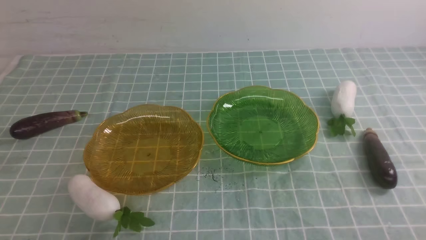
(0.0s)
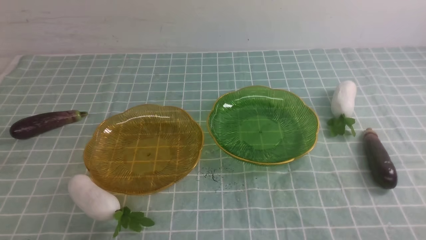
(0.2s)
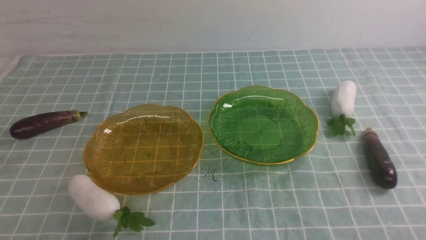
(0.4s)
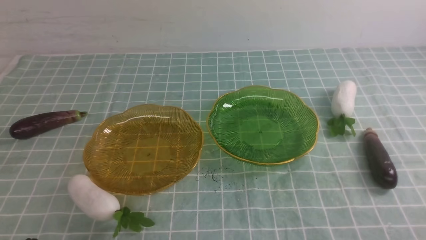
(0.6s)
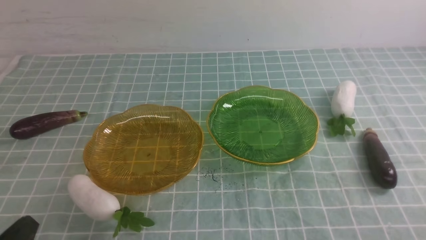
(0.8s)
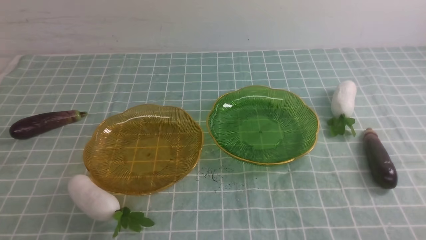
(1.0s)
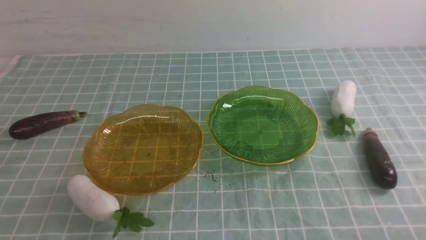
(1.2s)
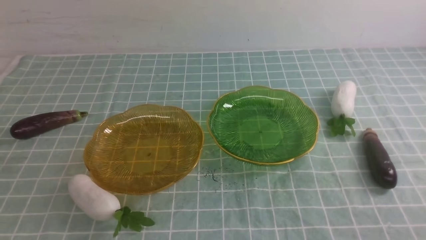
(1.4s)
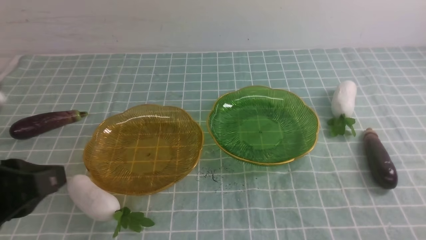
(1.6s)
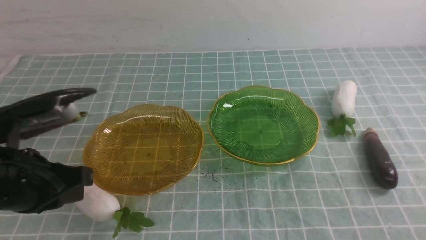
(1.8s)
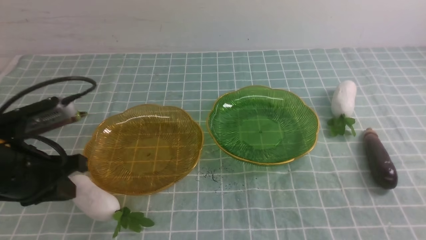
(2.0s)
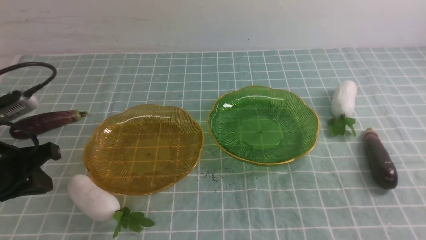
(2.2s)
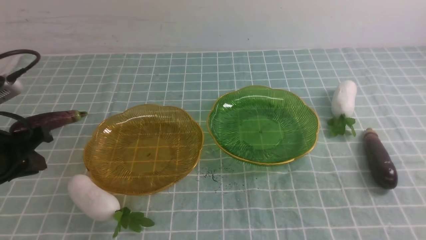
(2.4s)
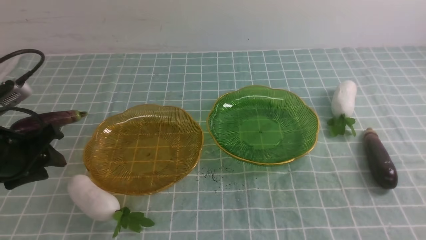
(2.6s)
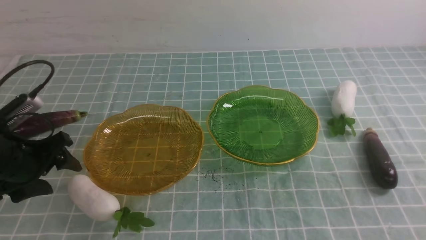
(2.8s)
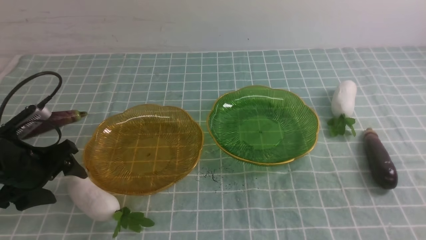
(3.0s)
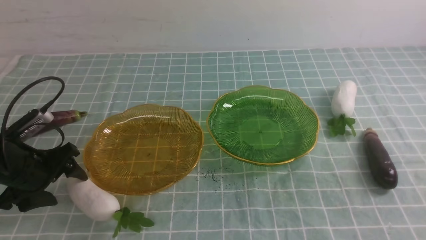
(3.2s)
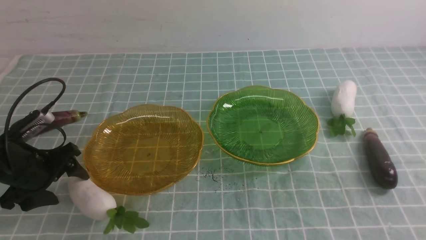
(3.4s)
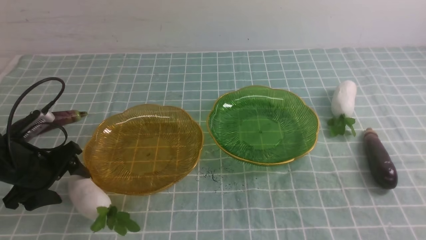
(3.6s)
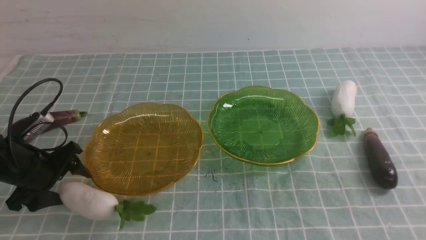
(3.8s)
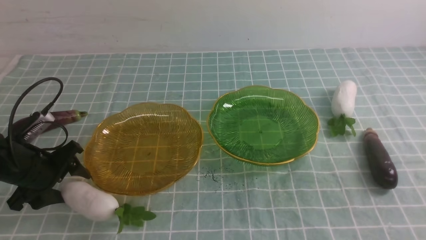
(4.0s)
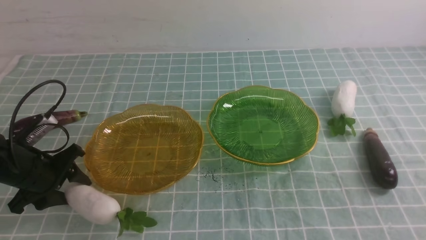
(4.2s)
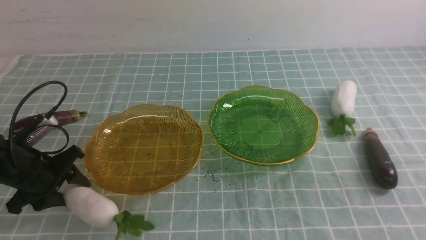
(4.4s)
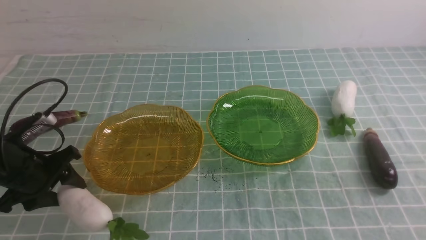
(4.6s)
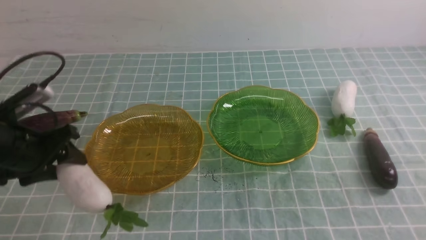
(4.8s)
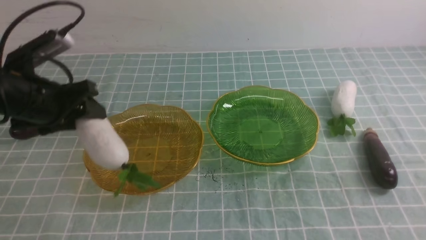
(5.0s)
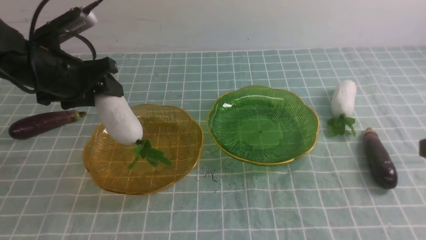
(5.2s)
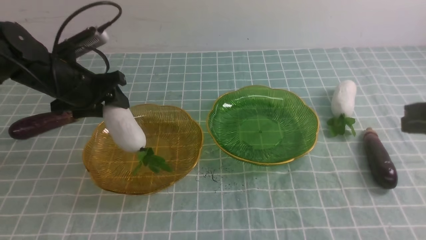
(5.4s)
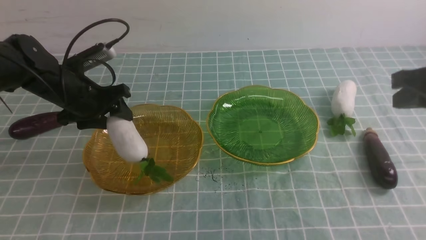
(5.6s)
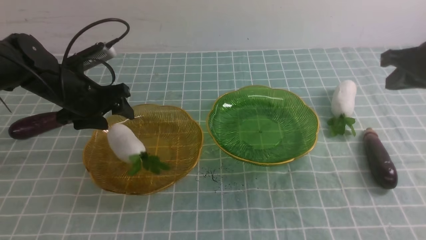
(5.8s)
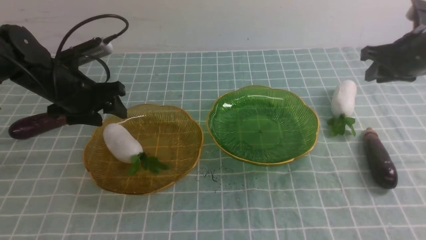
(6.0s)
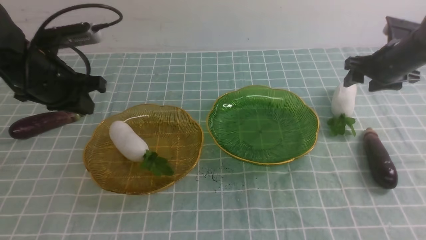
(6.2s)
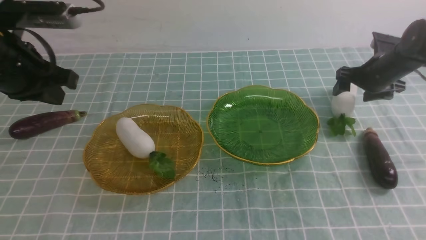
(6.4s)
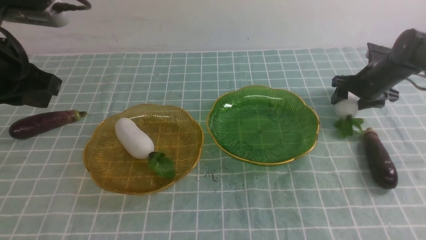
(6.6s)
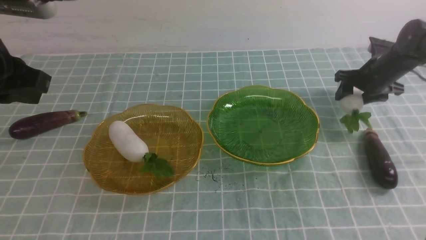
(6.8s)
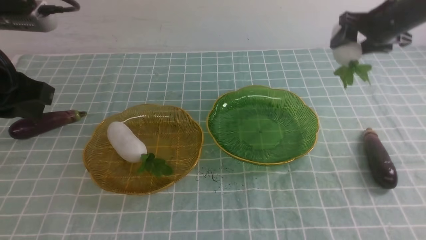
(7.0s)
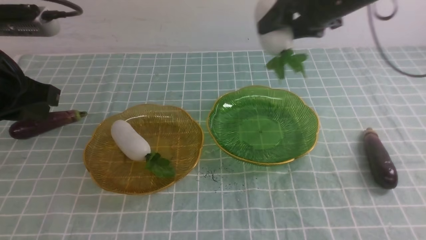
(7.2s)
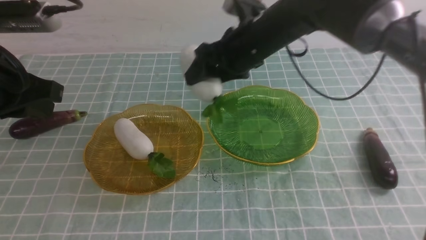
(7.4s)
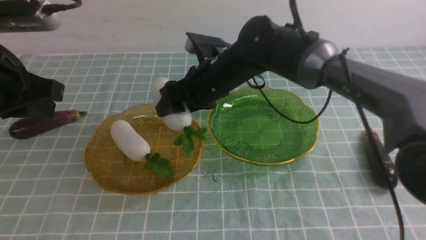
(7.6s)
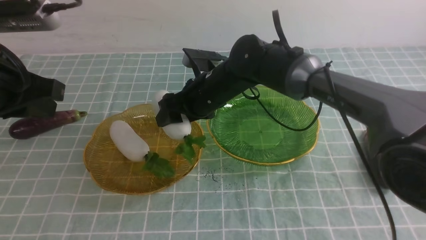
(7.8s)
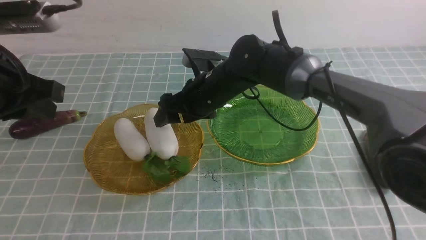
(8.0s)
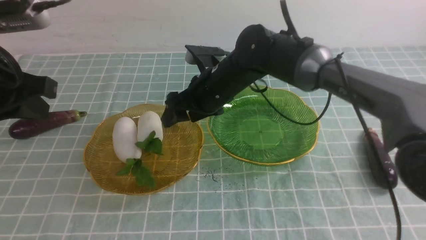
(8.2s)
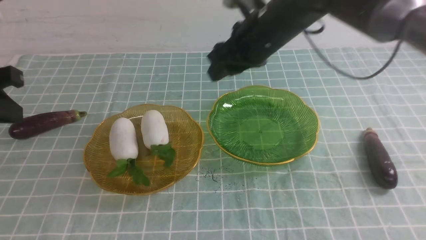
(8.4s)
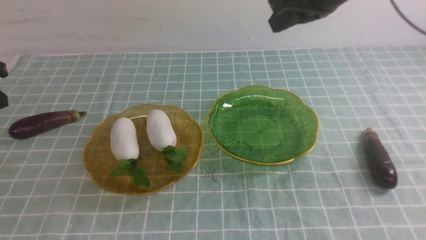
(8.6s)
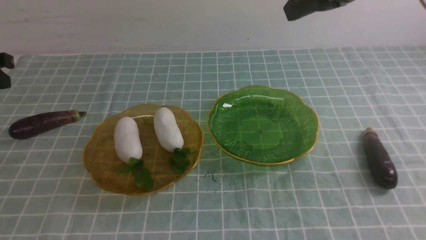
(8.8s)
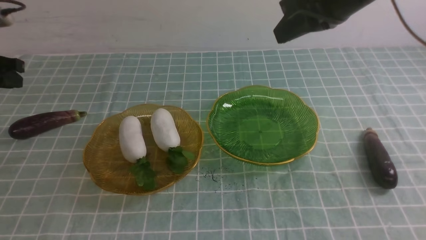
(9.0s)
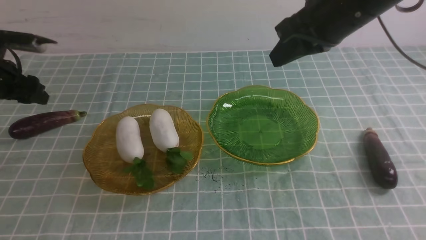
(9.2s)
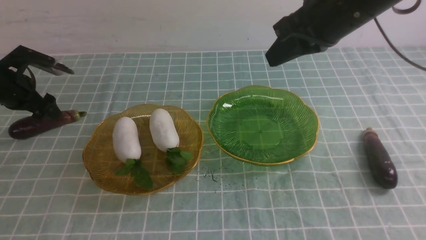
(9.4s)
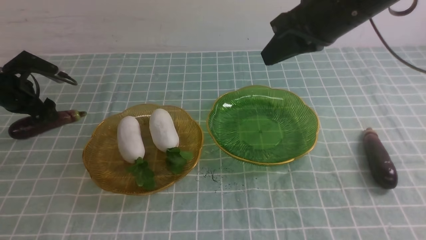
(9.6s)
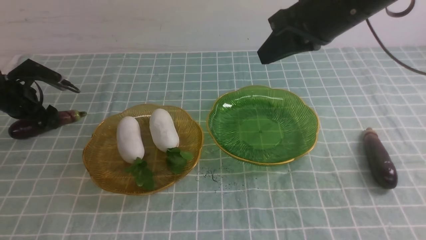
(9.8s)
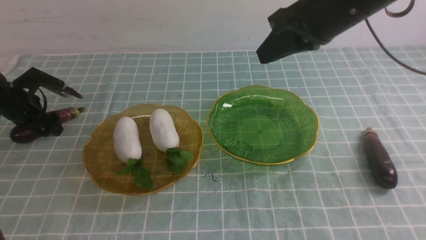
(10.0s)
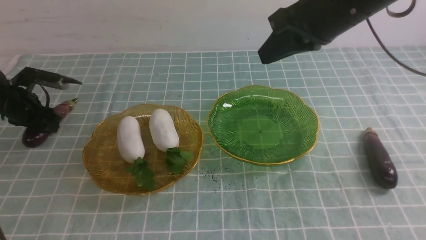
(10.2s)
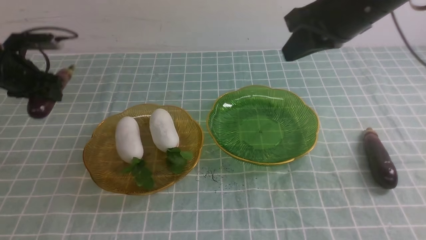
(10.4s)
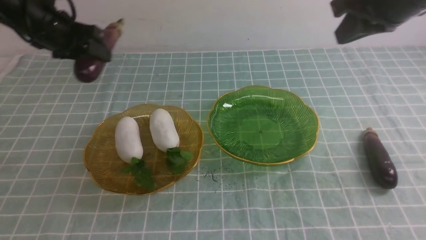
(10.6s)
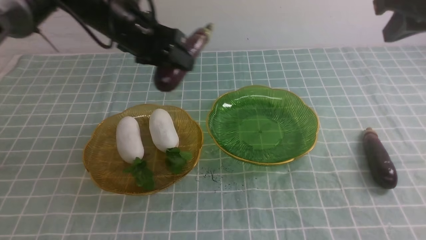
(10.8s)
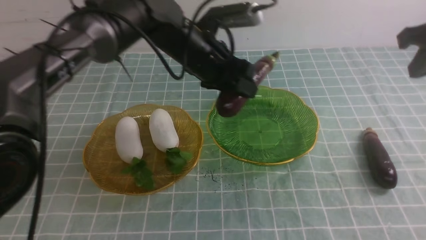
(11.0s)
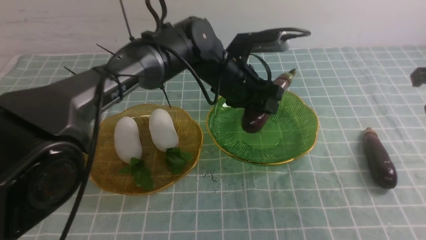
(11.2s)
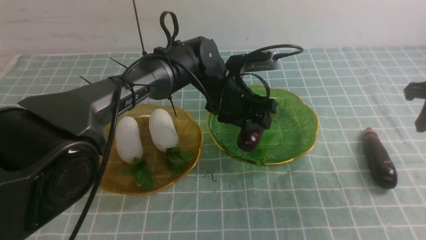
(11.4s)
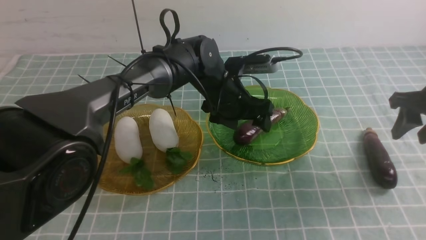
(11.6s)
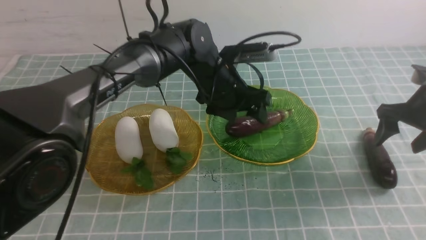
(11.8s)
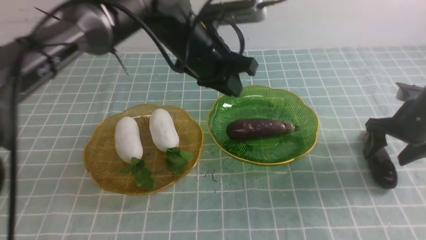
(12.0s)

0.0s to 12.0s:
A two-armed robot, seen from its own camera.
Step, 0.0s to 5.8s: use the left arm to grab a radish and put it into the left plate.
Step, 6.0s to 8.0s: use the right arm to grab a radish and put it into the left plate.
Step, 8.2s to 11.4s: use the left arm to grab an eggplant and put it into the right plate.
0.0s to 1.6s: The left gripper is displaced upward and forward by some 15 cm.
1.6s to 3.0s: The left gripper travels forward, downward and to the left by about 20 cm, and opens.
3.0s to 4.4s: The grippers make only small movements.
4.4s to 6.0s: The left gripper goes about 15 cm upward, forward and to the right. The right gripper heads forward, covering roughly 35 cm, and opens.
6.0s to 7.6s: The right gripper is displaced to the left by about 30 cm; the left gripper goes approximately 15 cm backward and upward, and closes its fingers.
7.6s to 9.0s: The right gripper heads upward, to the right and backward, covering roughly 25 cm, and closes; the left gripper goes roughly 25 cm forward, to the left and downward, and opens up.
9.0s to 10.4s: The left gripper shifts about 5 cm to the right, moves about 10 cm downward and comes back, and opens, then closes again.
10.4s to 12.0s: The left gripper heads to the right, covering approximately 30 cm, while the right gripper heads downward and to the right, covering some 25 cm, and opens its fingers.

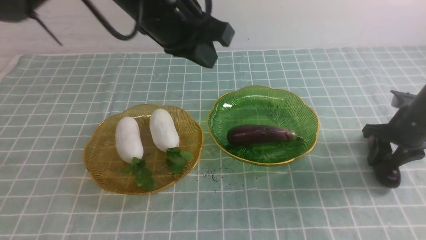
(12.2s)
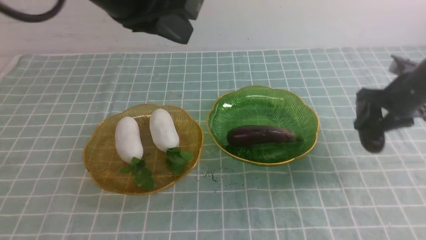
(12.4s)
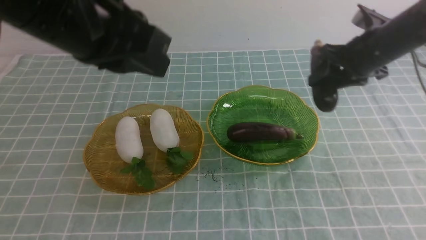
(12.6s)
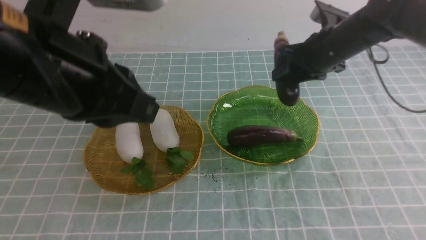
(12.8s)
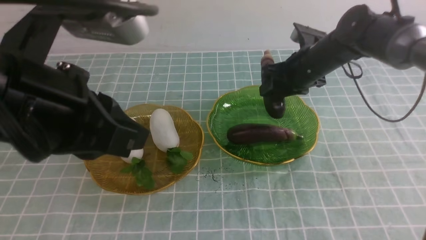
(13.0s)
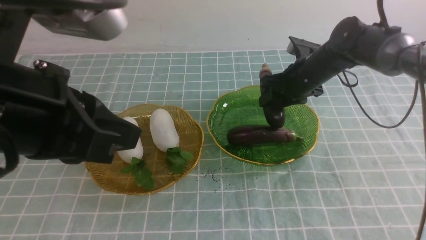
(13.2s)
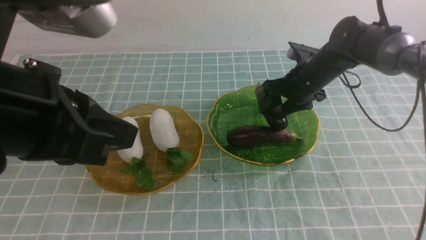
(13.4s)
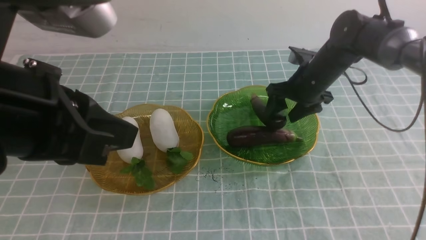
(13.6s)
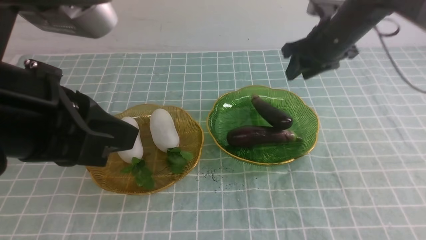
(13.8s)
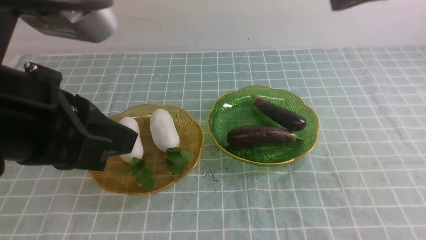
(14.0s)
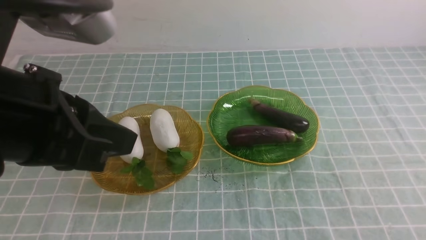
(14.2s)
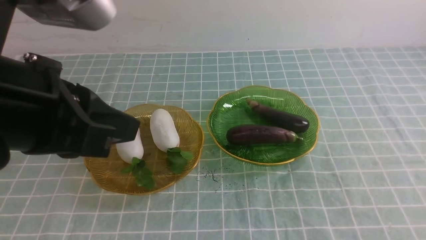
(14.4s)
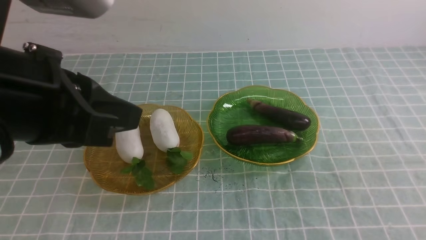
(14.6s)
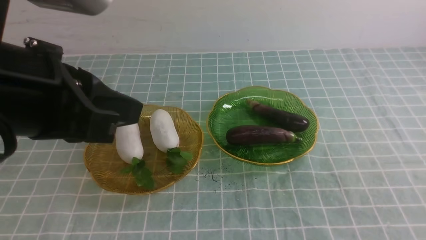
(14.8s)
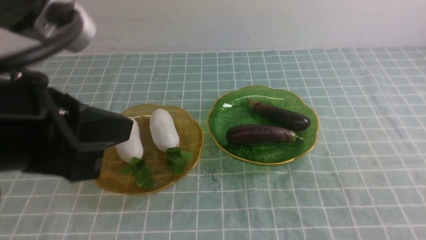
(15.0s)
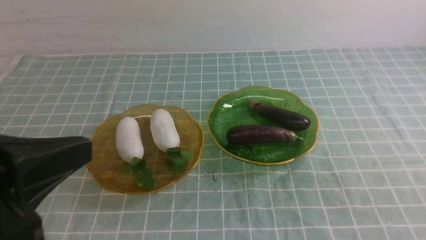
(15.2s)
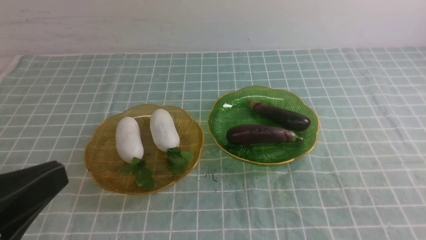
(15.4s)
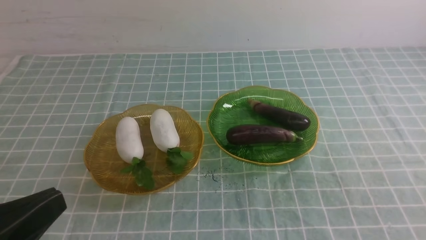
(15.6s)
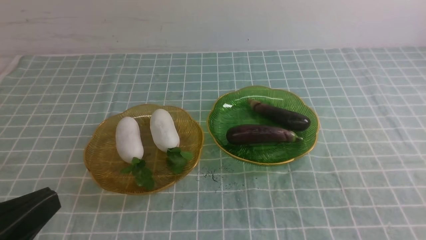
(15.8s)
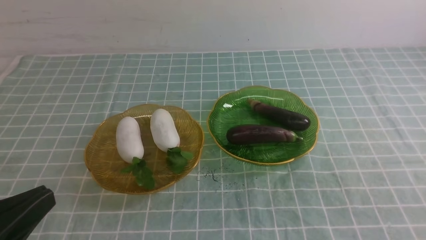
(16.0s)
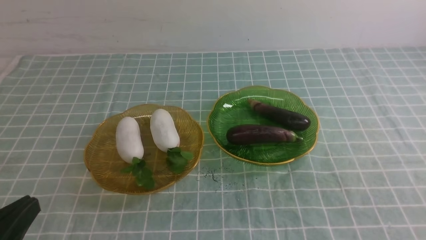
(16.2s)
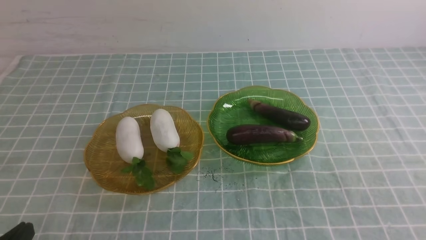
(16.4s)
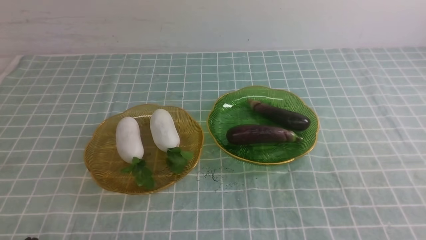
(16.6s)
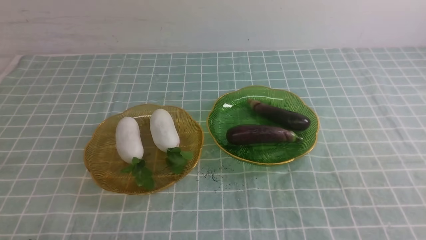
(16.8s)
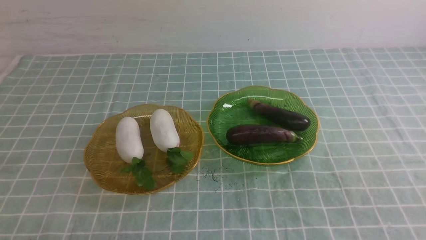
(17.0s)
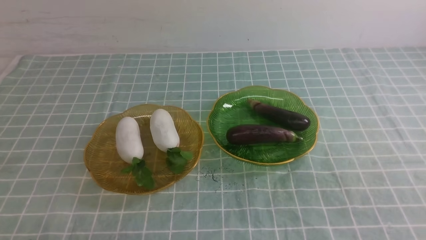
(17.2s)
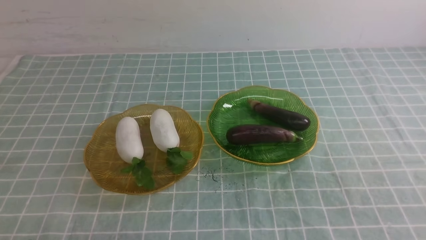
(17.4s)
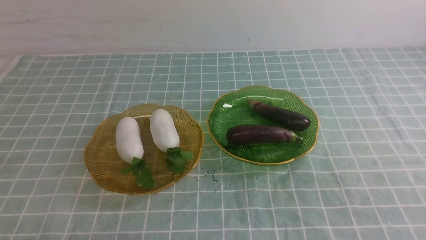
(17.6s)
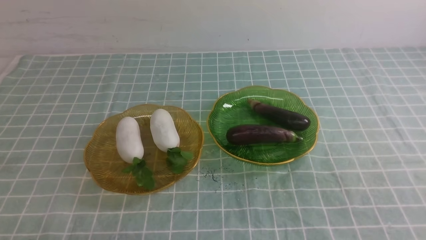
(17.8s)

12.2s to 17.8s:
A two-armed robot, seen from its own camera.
Step, 12.2s to 13.6s: use the right arm to grab an eggplant and put it into the right plate.
12.2s to 13.6s: The left gripper shifts about 15 cm backward and to the left; the right gripper travels to the left by roughly 15 cm.
13.6s to 15.0s: The right gripper moves backward, about 40 cm, and closes its fingers.
15.0s to 16.4s: The left gripper goes approximately 20 cm downward.
